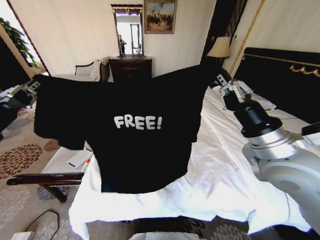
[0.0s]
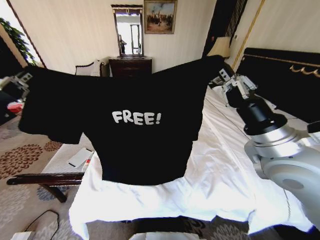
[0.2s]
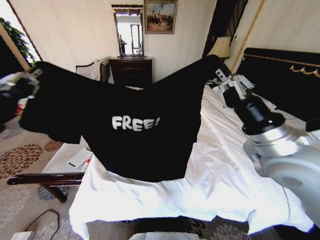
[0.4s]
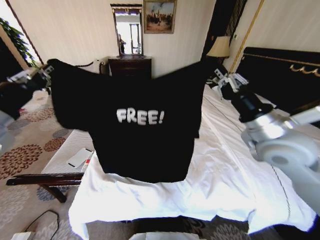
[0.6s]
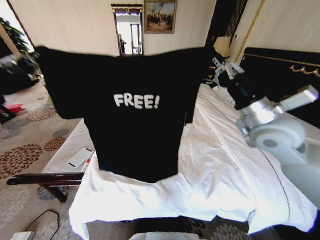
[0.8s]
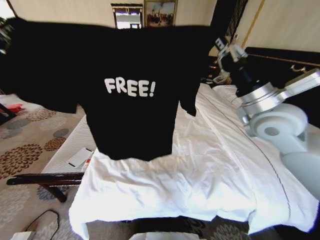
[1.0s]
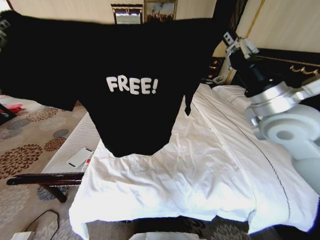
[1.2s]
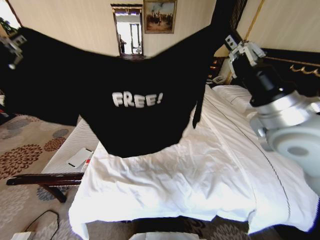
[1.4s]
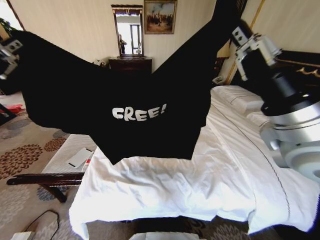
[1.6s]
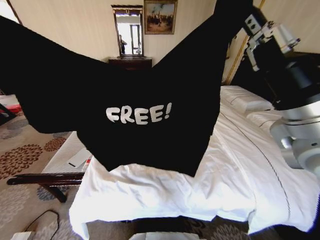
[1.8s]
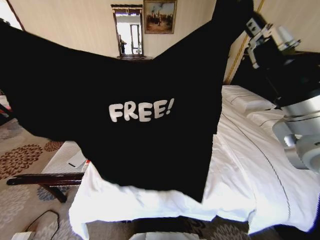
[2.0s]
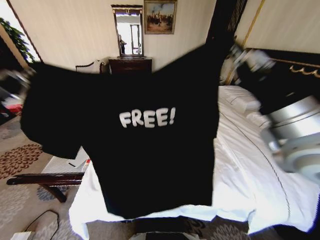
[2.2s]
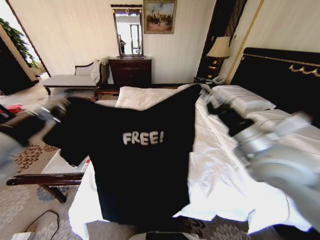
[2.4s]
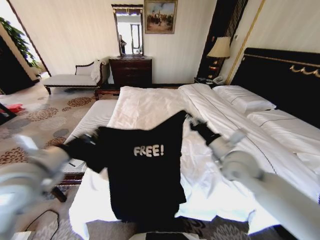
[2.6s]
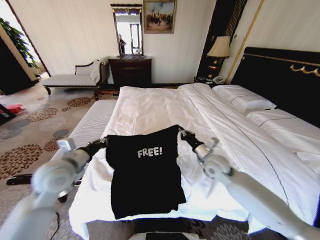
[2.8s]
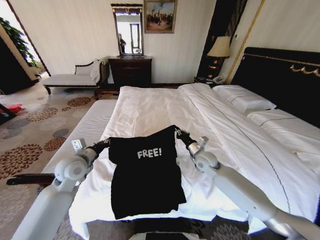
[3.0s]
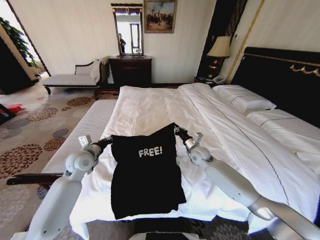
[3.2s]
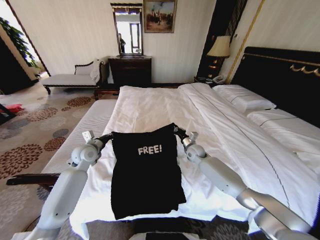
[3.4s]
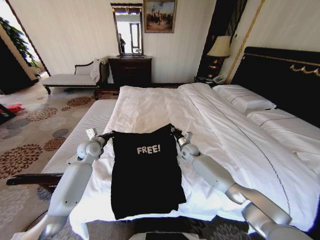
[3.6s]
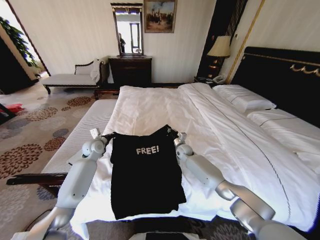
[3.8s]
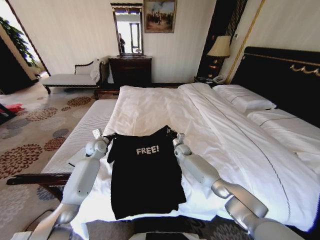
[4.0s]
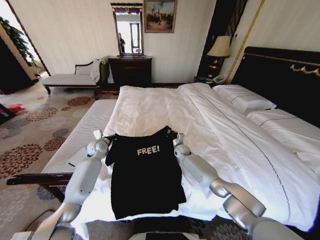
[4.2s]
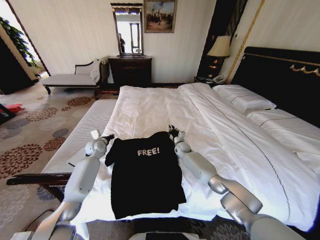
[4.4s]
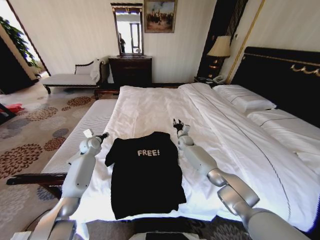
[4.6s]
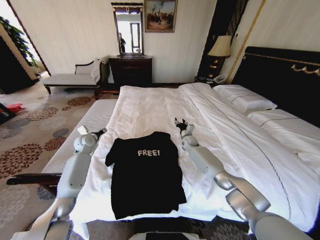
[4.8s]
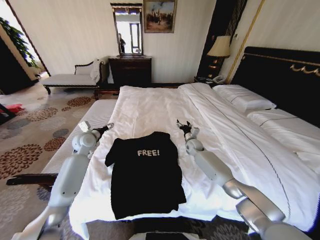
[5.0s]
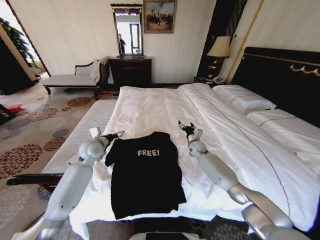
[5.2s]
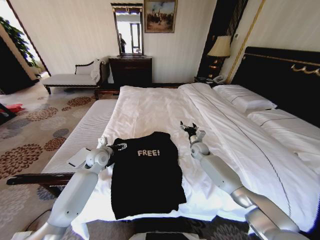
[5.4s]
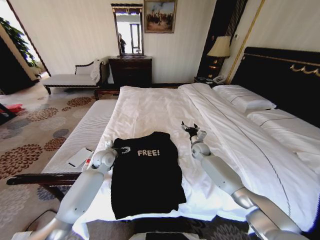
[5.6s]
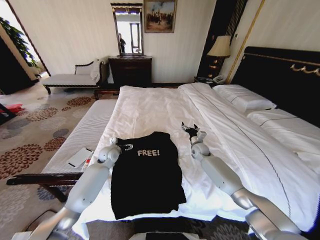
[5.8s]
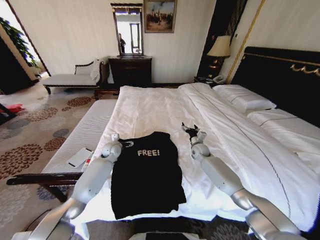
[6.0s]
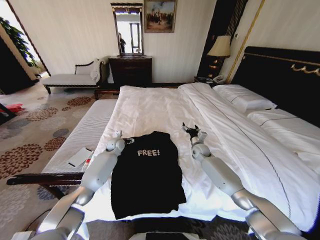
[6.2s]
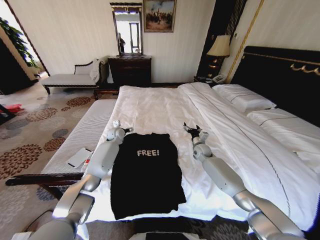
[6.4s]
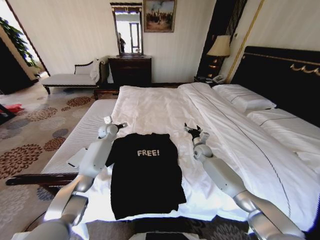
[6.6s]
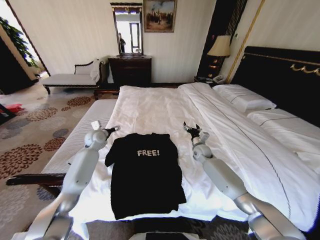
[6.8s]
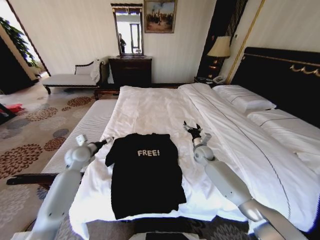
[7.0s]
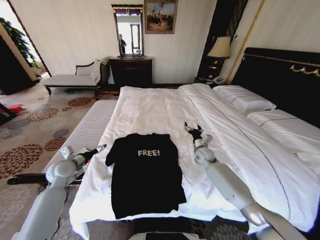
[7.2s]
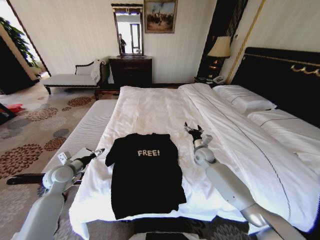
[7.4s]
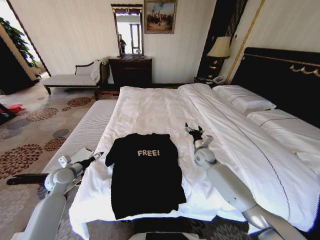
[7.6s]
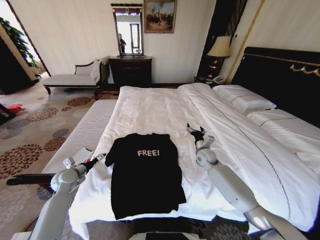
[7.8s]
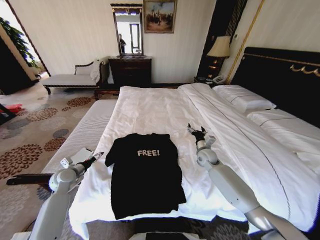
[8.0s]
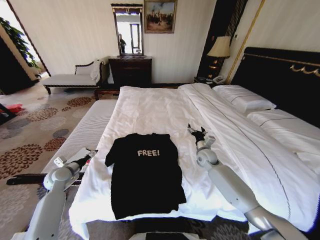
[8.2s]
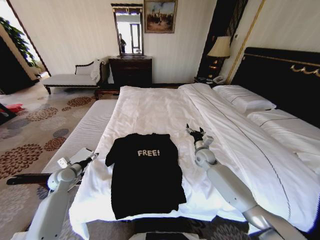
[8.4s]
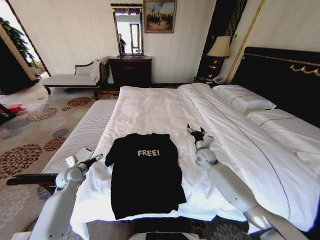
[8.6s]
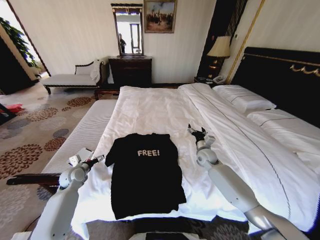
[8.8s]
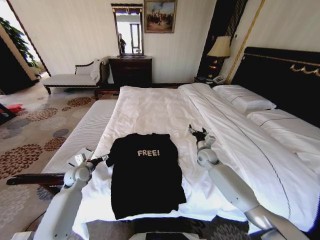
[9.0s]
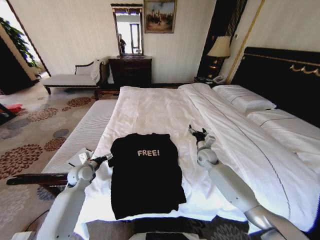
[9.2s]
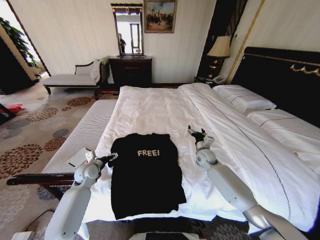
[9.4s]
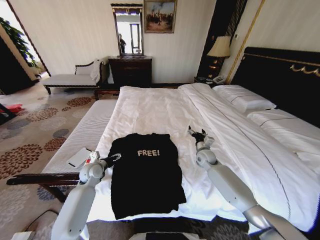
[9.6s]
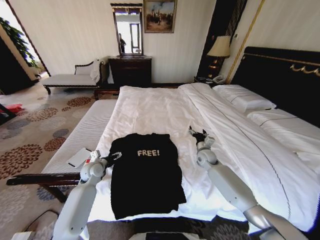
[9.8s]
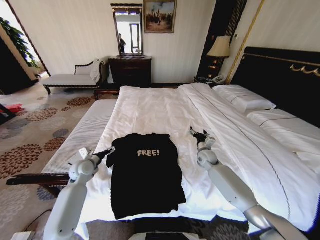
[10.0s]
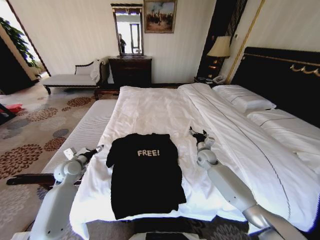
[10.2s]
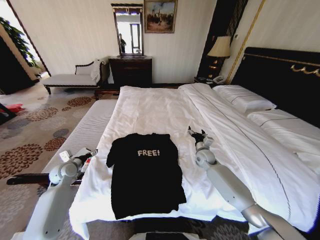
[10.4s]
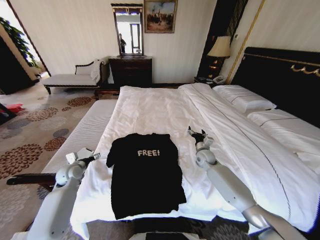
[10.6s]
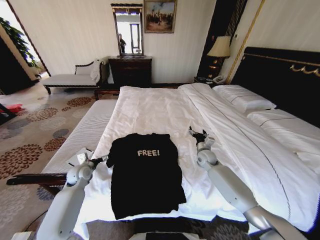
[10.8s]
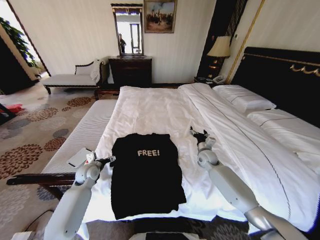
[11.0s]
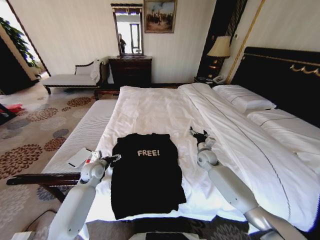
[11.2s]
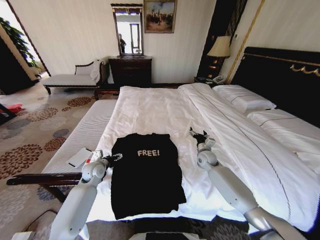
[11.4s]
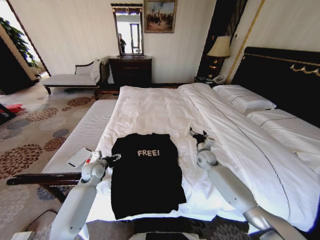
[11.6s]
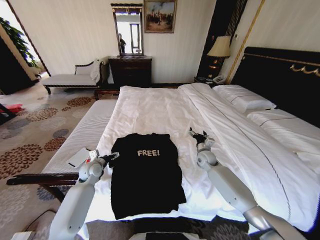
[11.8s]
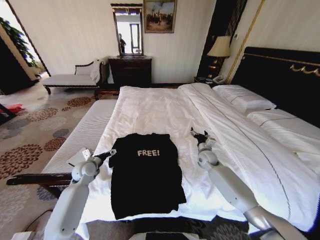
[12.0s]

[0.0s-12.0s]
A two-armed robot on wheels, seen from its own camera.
Task of the whole recording: Fold the clothes on the bed.
0.0s to 1.6s: Both grippers move upward, roughly 5 cm. The right gripper goes forward and returns, approximately 10 cm each way, while the left gripper reaches some 5 cm forward, then returns.
1.6s to 3.0s: The grippers both shift downward and forward by some 35 cm.
3.0s to 4.4s: Both grippers move forward and downward, approximately 20 cm.
4.4s to 6.0s: Both grippers travel together to the right, approximately 10 cm. The left gripper opens, while the right gripper opens up.
6.0s to 7.6s: The right gripper shifts about 5 cm backward, while the left gripper moves to the left and backward, about 25 cm.
7.6s to 9.0s: The left gripper ends up roughly 5 cm from where it was.
9.0s to 10.4s: The left gripper ends up approximately 5 cm from where it was.
10.4s to 12.0s: The left gripper goes approximately 10 cm to the right.

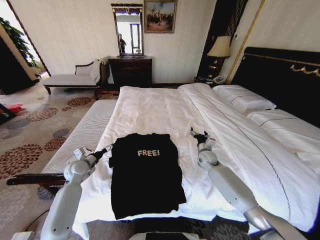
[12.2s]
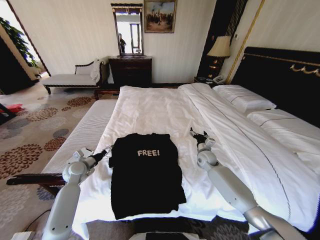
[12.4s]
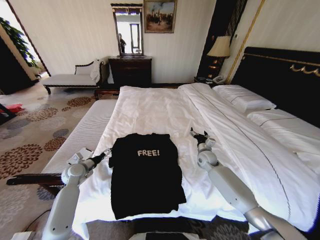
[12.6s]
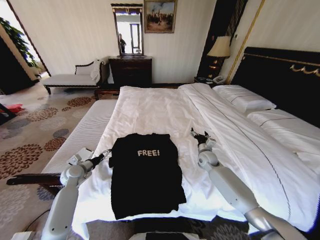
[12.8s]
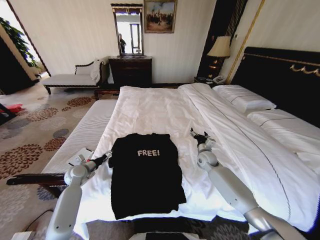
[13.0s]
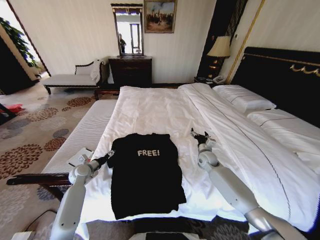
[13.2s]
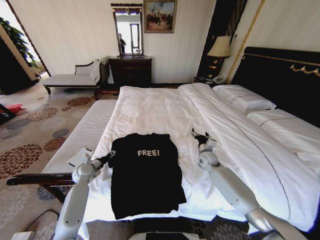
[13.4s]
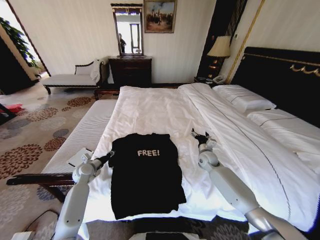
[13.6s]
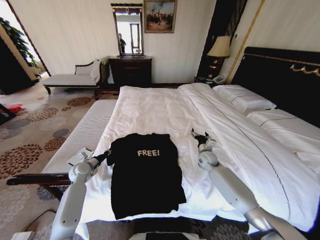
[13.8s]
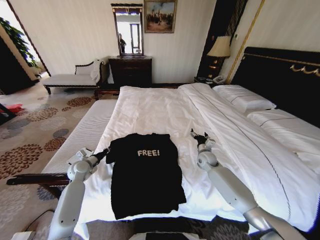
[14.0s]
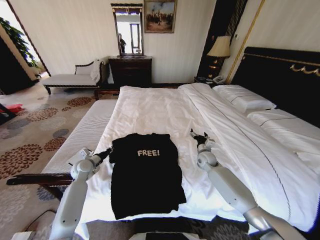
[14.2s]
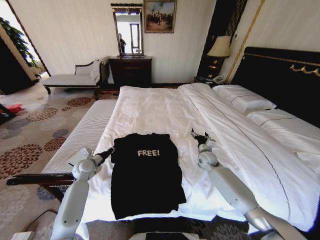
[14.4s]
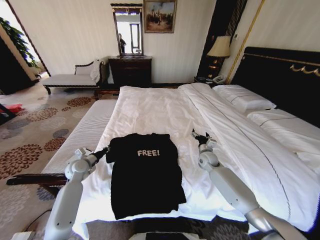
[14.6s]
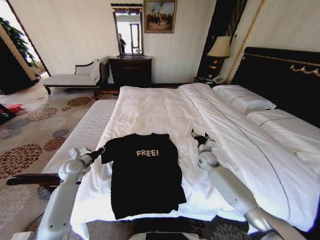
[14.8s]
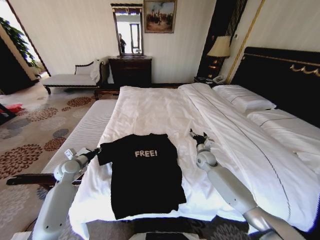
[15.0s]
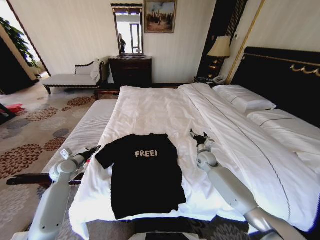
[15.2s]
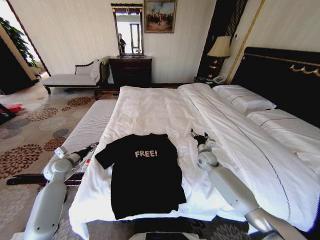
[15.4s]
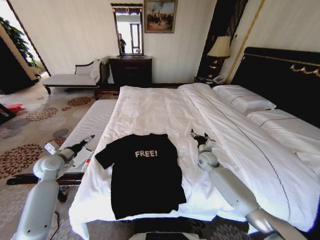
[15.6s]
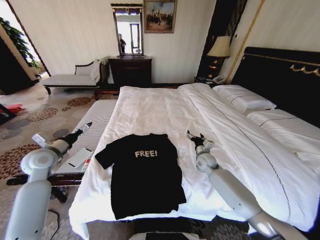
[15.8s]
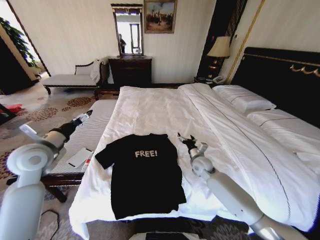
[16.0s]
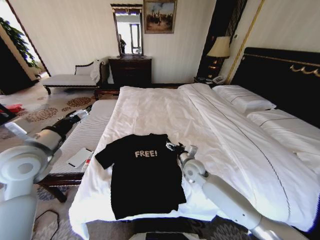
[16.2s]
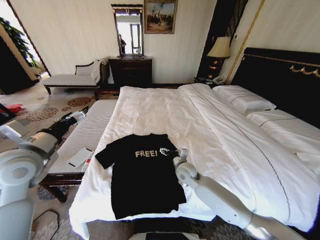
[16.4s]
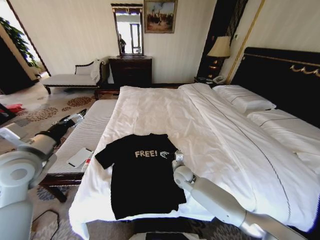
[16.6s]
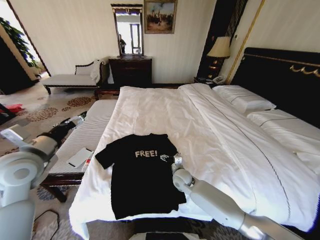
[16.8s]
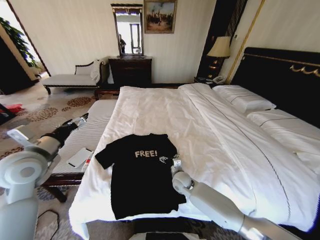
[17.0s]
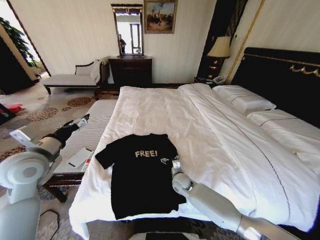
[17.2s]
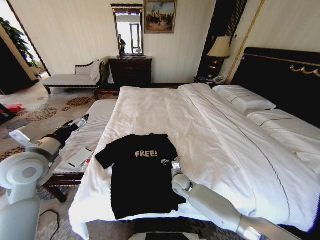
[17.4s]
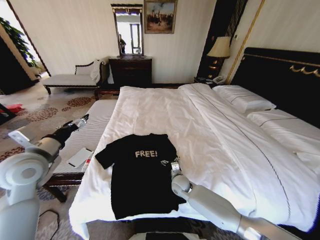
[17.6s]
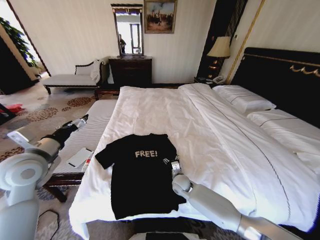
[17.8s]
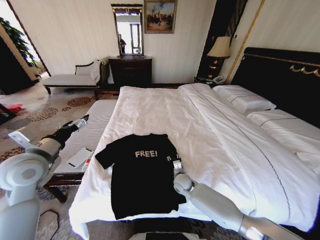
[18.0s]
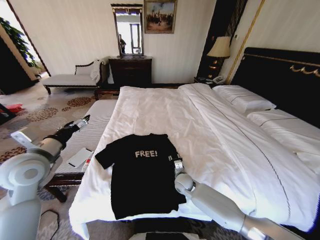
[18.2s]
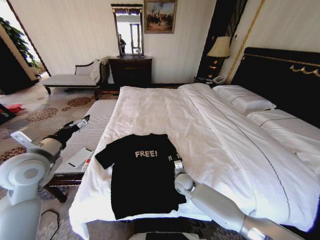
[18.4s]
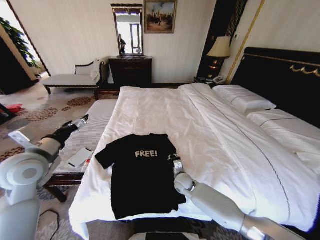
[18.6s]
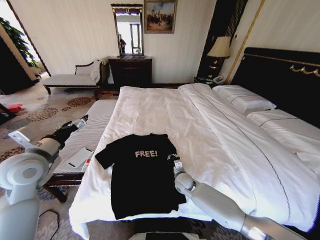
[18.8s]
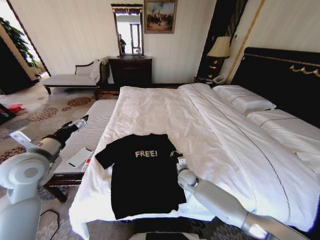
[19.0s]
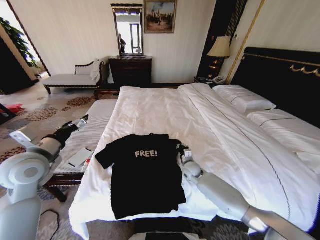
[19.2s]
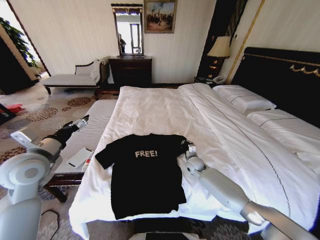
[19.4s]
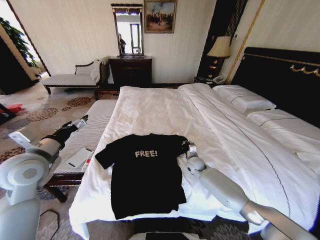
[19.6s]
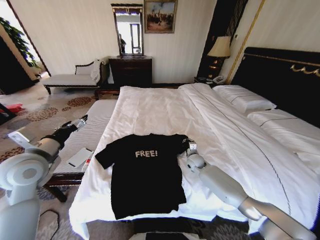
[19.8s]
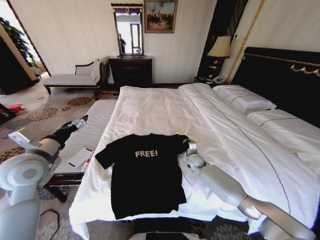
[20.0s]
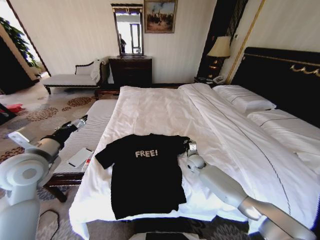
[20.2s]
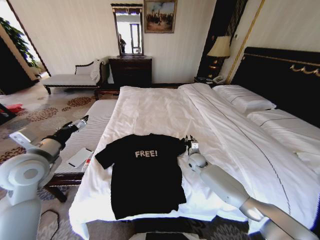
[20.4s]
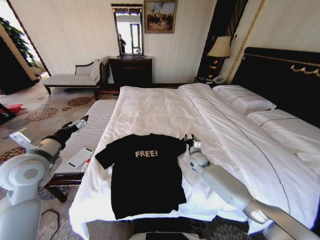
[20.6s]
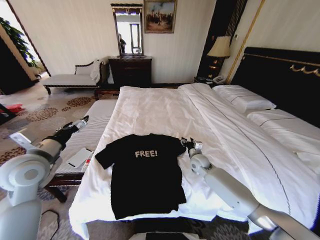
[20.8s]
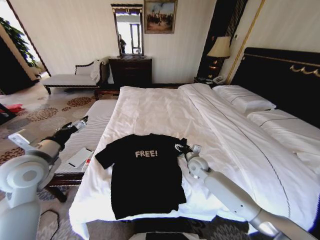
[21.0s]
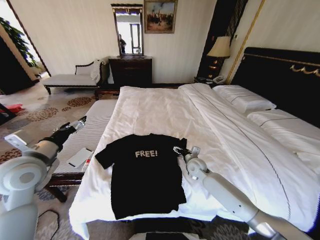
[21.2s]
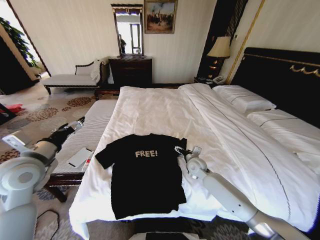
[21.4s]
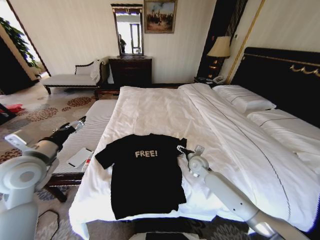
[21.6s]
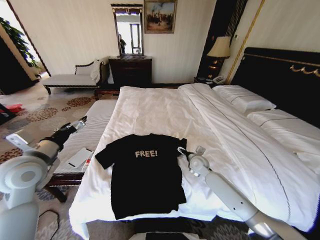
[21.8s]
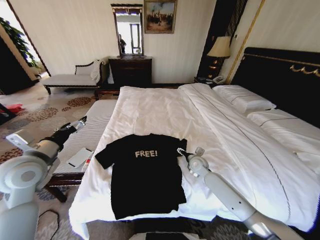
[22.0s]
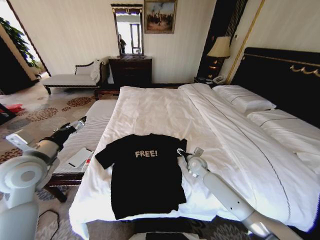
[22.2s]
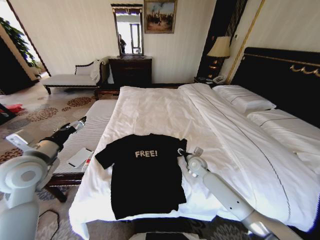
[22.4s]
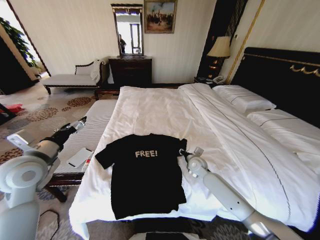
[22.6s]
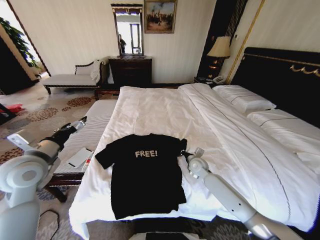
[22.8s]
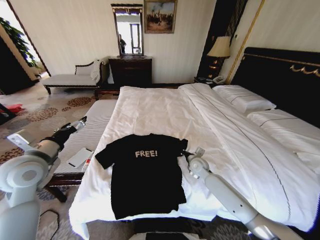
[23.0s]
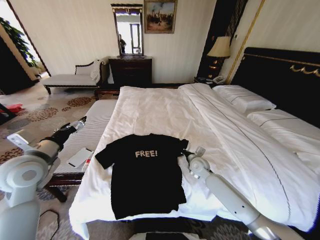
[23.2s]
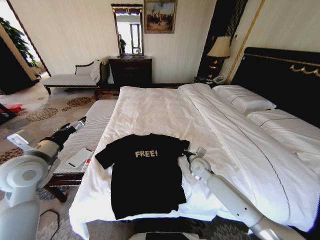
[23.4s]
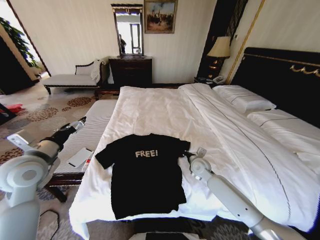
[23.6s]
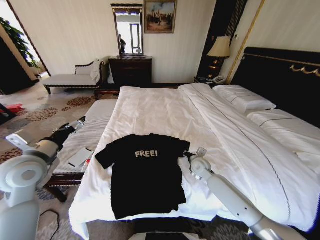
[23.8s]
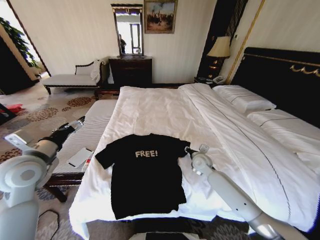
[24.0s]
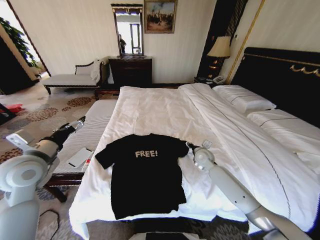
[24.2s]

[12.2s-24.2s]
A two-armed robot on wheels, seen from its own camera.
Task of the whole recording: Fold the clothes on the bed.
12.2s to 13.8s: The left gripper goes roughly 5 cm downward, and closes its fingers.
13.8s to 15.2s: The left gripper moves upward, roughly 5 cm.
15.2s to 16.6s: The right gripper goes some 15 cm to the left and backward. The left gripper travels upward and backward by approximately 25 cm, and opens up.
16.6s to 18.2s: The right gripper moves downward, approximately 5 cm, and closes its fingers.
18.2s to 19.8s: The right gripper is displaced forward and to the right by approximately 15 cm, and closes its fingers.
19.8s to 21.2s: The right gripper shifts by approximately 5 cm, and opens its fingers.
21.2s to 22.6s: The right gripper closes.
22.6s to 24.2s: The right gripper shifts by approximately 5 cm, and closes and opens again.
